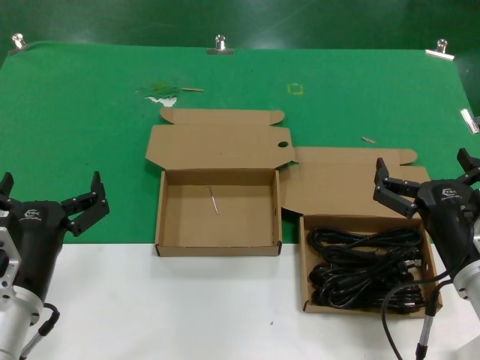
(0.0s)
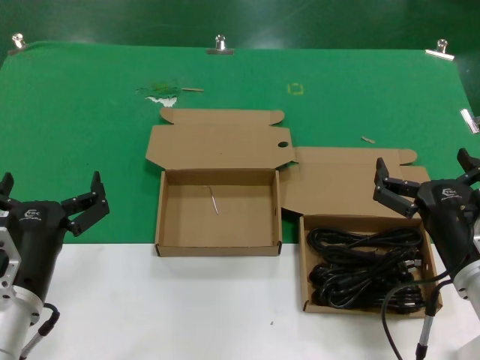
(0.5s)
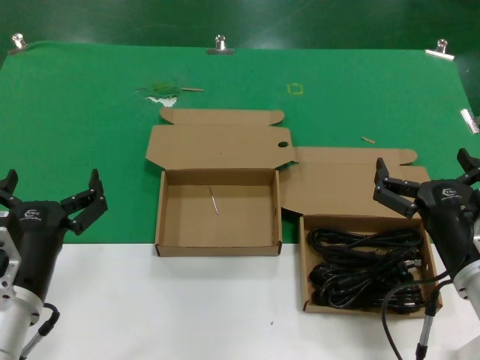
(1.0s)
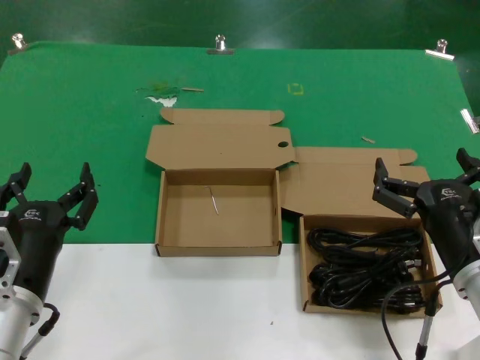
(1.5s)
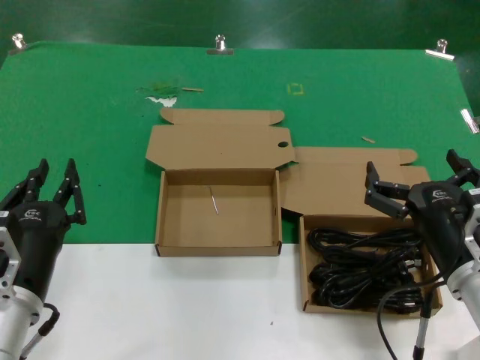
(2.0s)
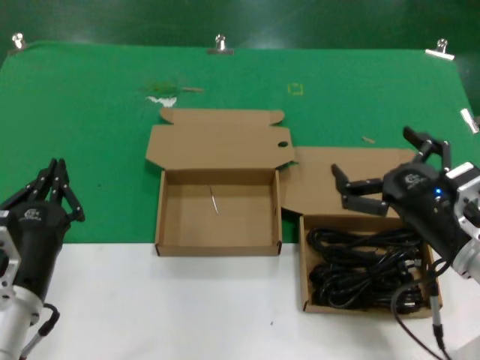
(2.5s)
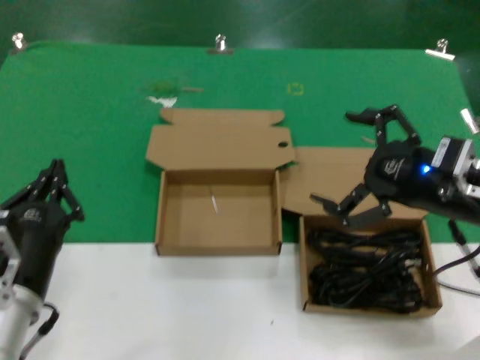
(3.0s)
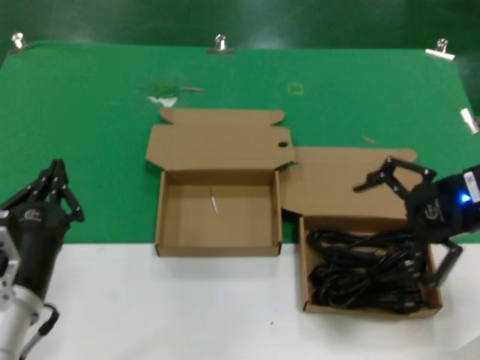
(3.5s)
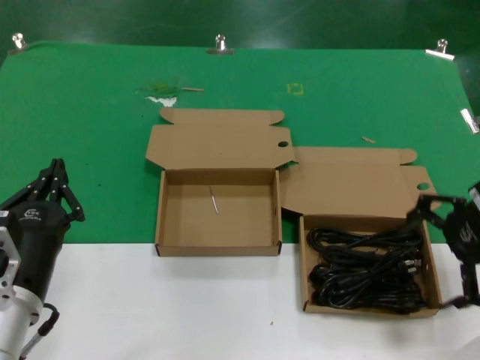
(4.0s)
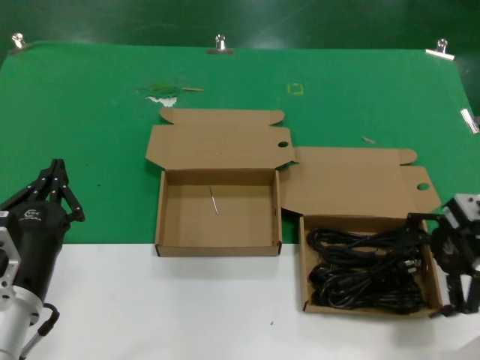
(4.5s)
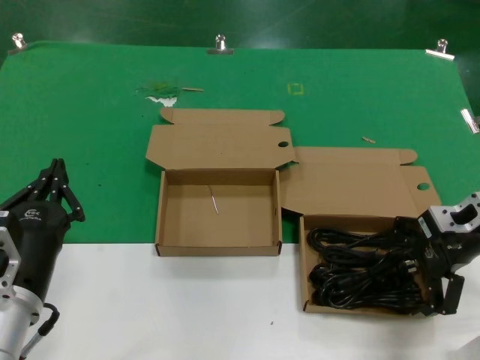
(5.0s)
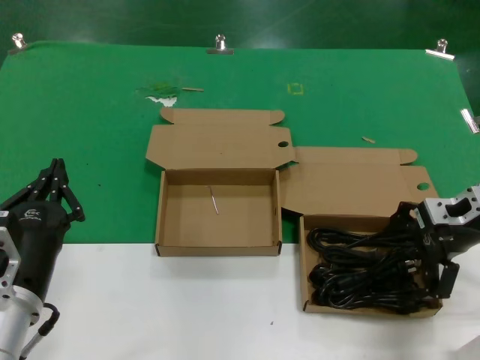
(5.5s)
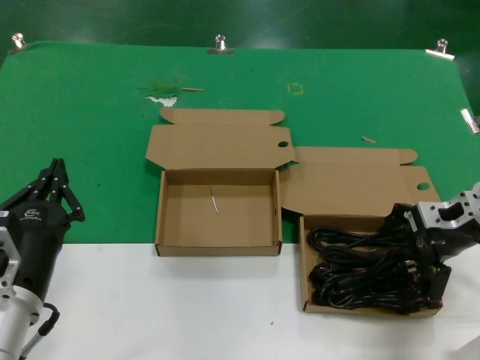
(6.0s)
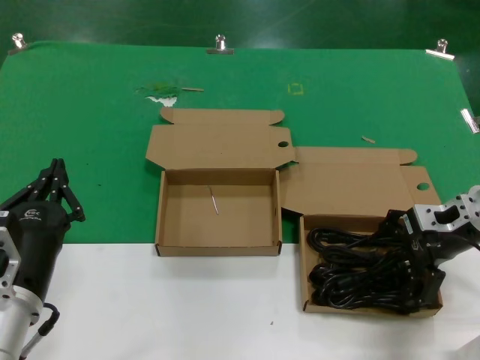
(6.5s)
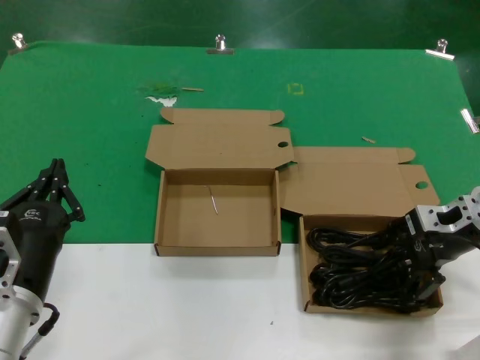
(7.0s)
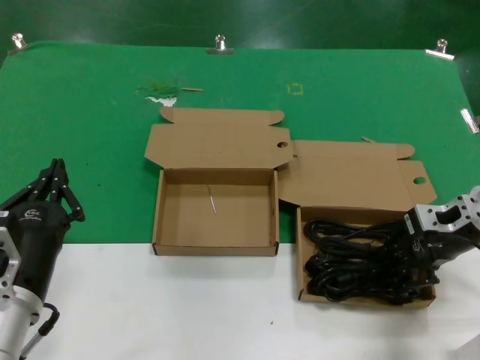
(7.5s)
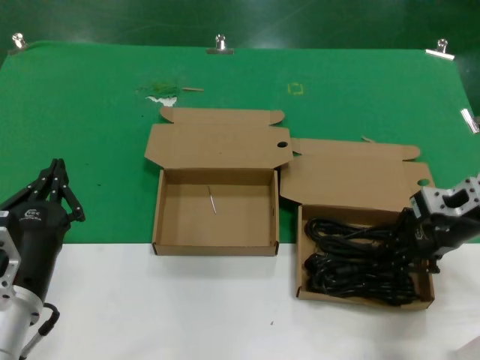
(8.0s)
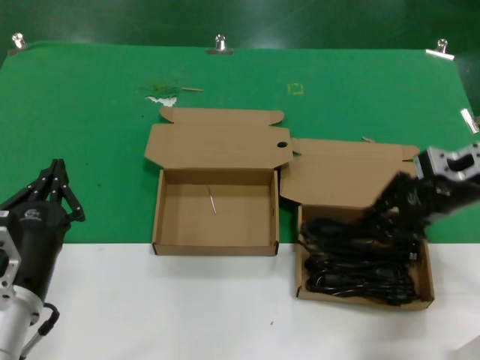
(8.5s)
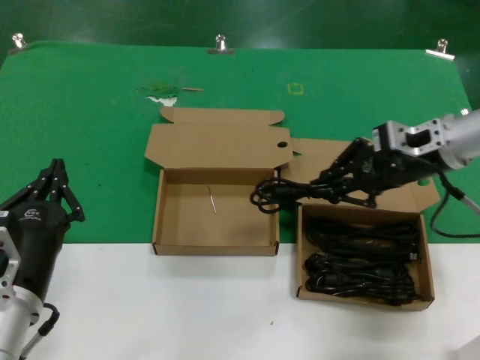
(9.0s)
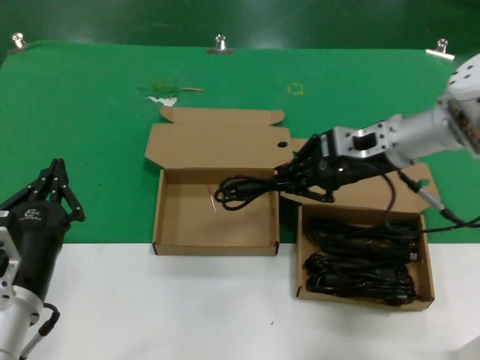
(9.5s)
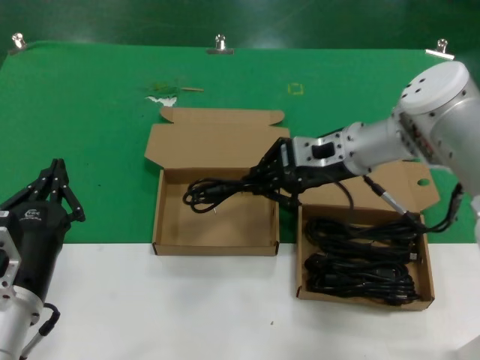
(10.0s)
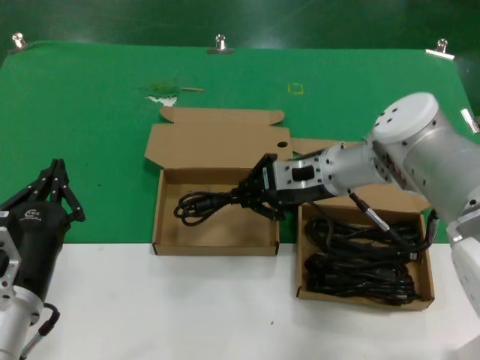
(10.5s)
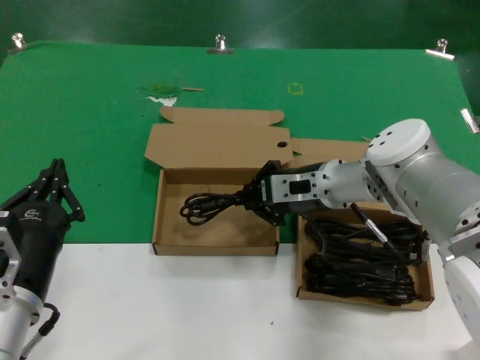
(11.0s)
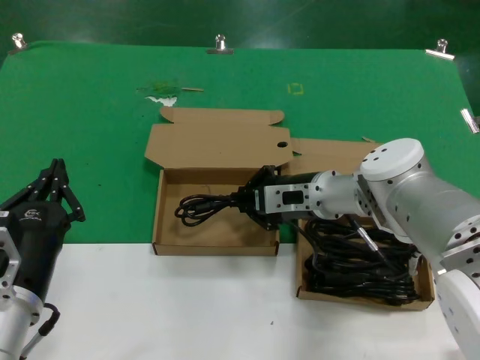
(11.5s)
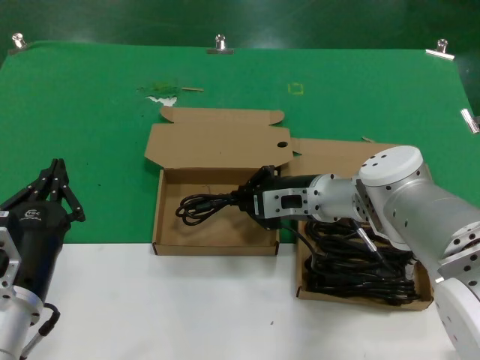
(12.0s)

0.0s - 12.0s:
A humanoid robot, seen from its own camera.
Task of the whole recording: take the parts from the box containing them and put them into an empty box.
Step, 0.0s - 7.5s: Grasp the data cable.
0.0s - 2.0s: Both hands stay about where they are.
2.0s - 4.0s: The right hand shifts roughly 25 cm upward, forward and to the right.
4.0s - 6.0s: The right hand is displaced downward by about 10 cm.
6.0s - 8.0s: The hands move only a little.
8.0s - 10.0s: The right hand travels to the left by roughly 15 cm.
10.0s - 12.0s: The right hand travels downward by about 10 cm.

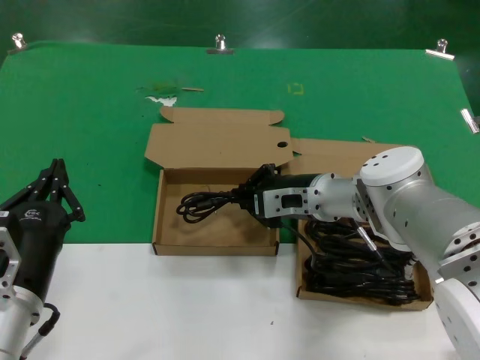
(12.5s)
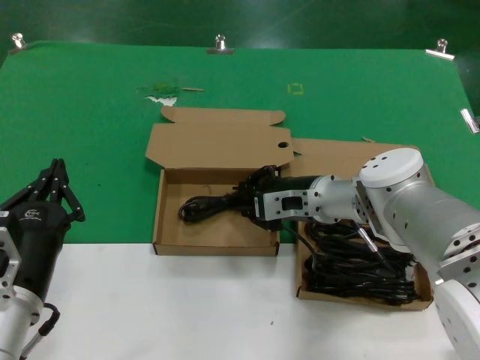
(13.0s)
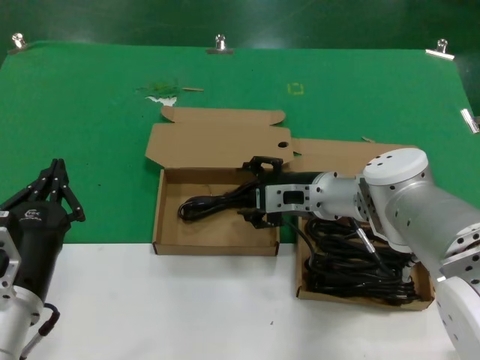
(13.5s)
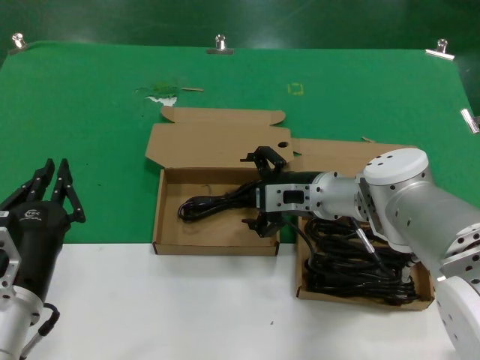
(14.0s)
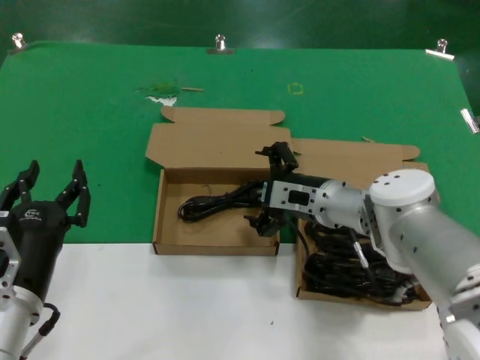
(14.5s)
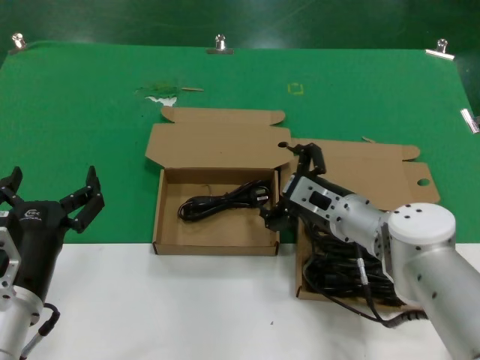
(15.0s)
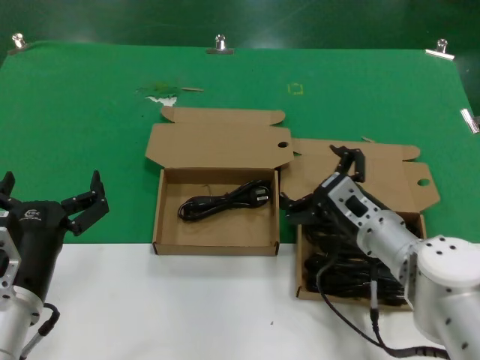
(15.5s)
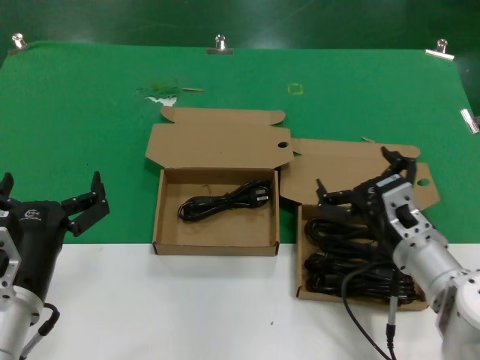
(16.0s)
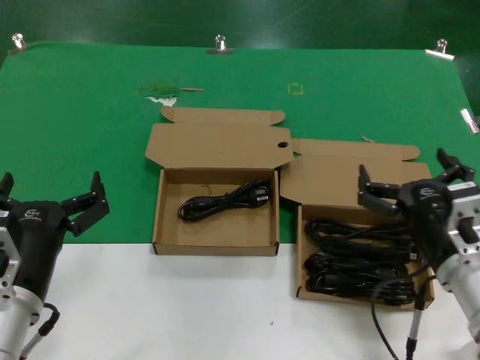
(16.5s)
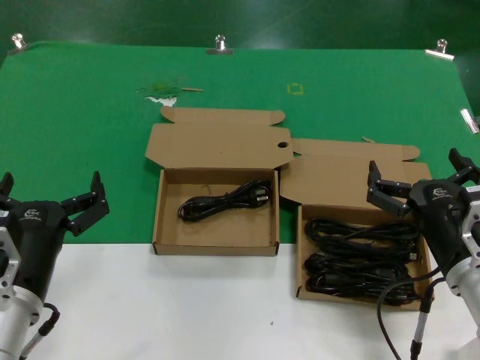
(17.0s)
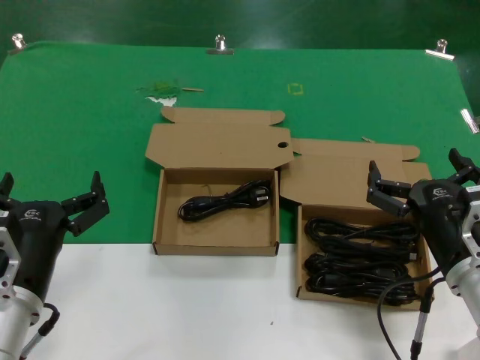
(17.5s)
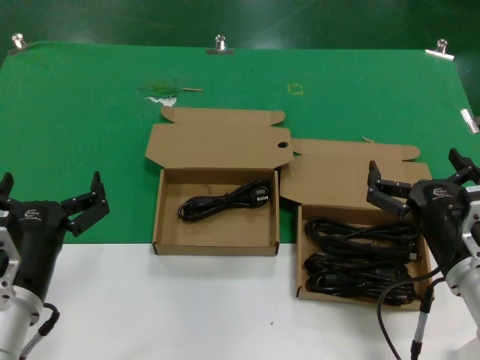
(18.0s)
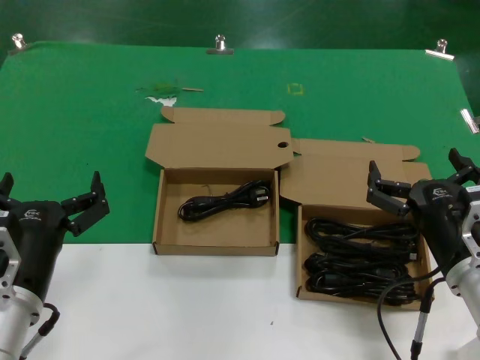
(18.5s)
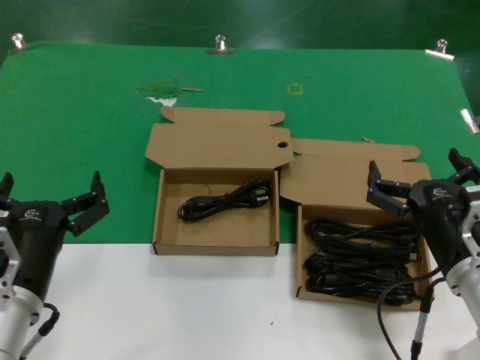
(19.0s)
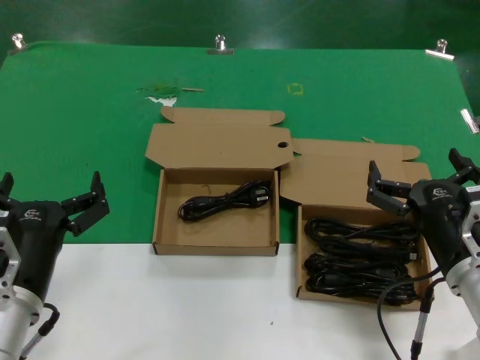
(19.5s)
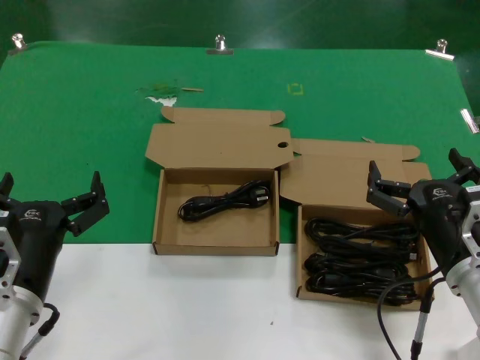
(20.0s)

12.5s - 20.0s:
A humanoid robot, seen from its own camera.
Task of the whole recording: take the parts from the box containing them and put them into an empty box.
12.5s - 14.5s: The hands move only a little.
14.5s - 16.5s: The right hand travels backward and to the right by roughly 20 cm.
16.5s - 18.0s: The hands move only a little.
18.0s - 20.0s: Both hands stay about where they are.

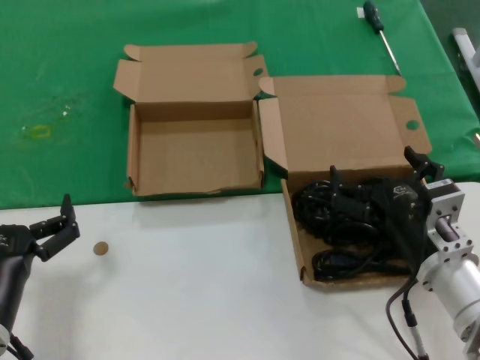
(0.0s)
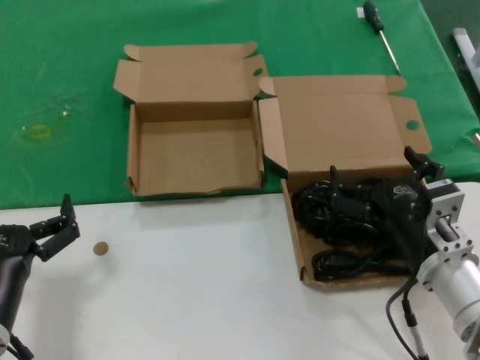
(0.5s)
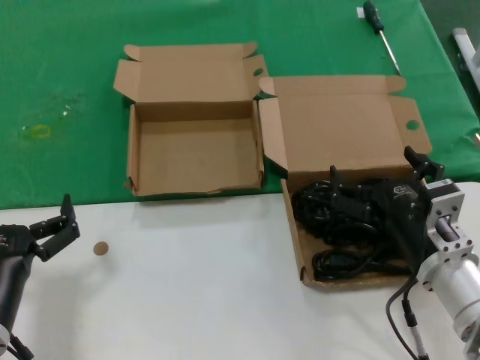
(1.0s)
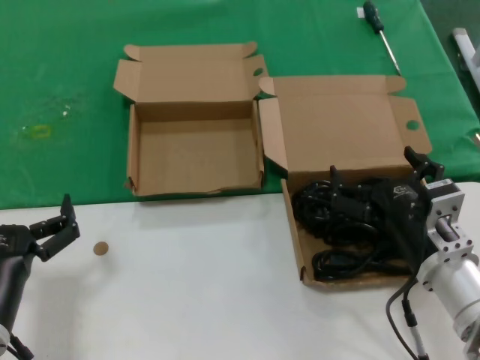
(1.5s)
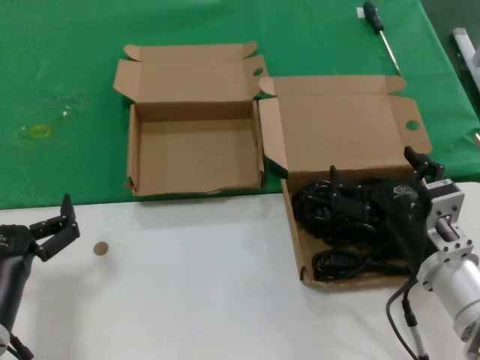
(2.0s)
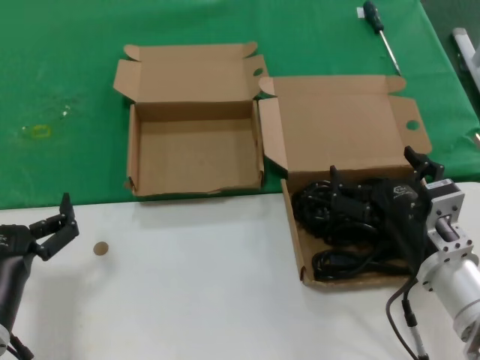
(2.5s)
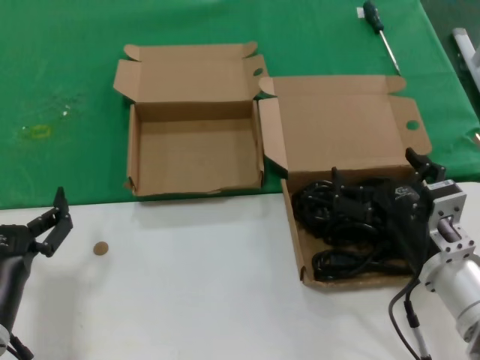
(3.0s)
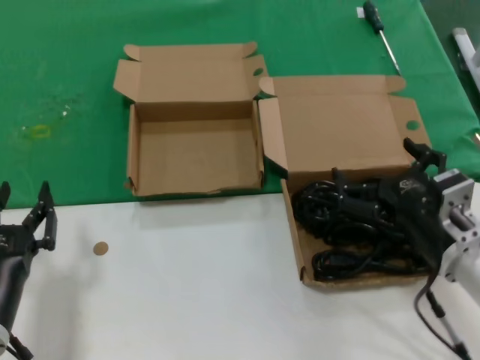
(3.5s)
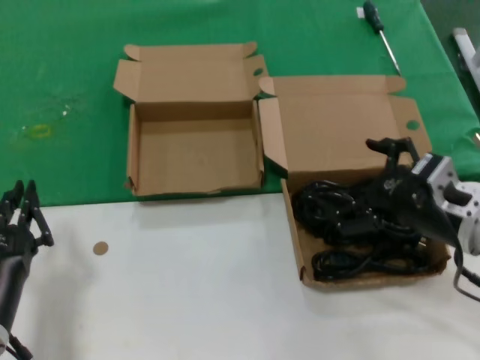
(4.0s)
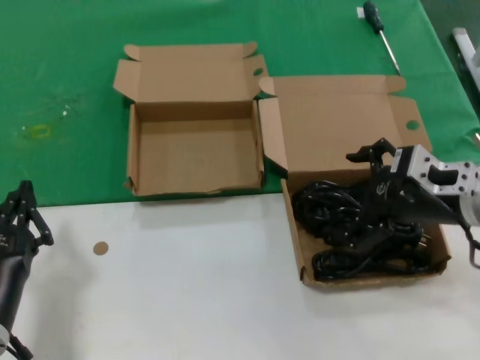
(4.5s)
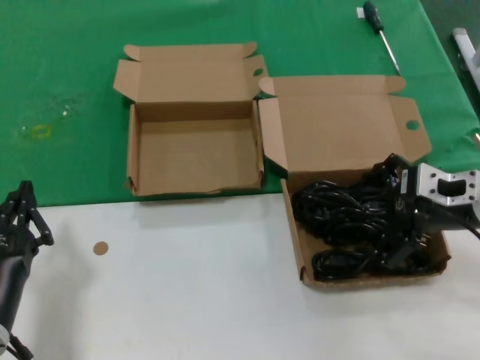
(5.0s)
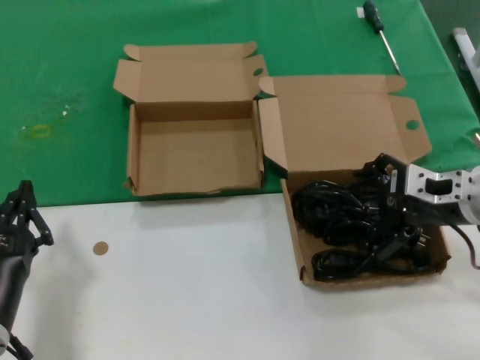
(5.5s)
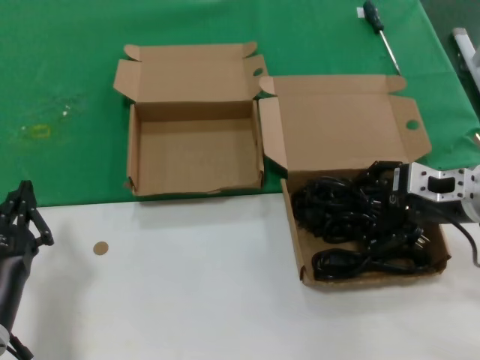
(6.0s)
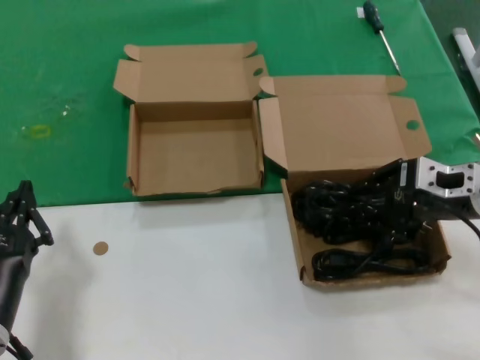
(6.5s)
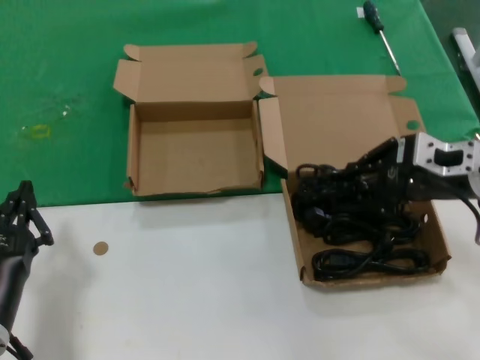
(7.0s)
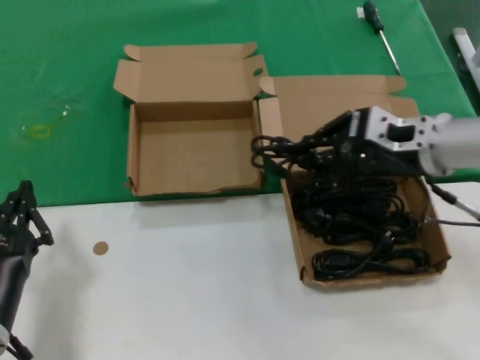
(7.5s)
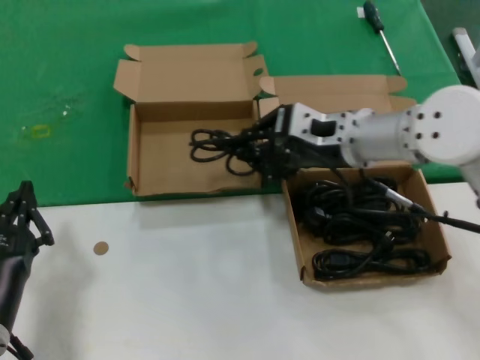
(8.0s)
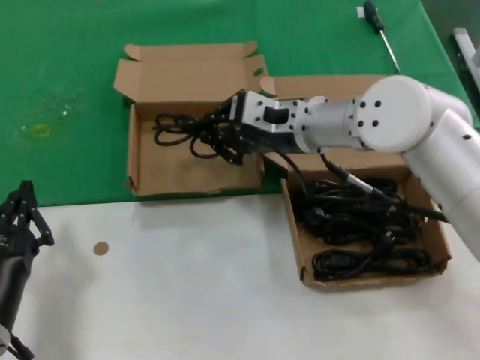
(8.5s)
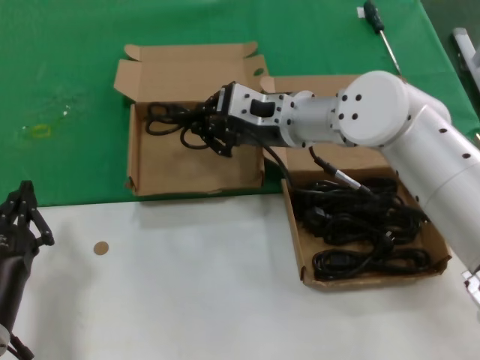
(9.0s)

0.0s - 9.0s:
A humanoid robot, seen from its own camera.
Task of the whole recording: take the parts from the box containing them and put them into an empty box.
Step, 0.0s - 6.5s: Grasp the data cable.
0.0s - 2.0s: Neither hand changes place.
2.0s - 4.5s: The right hand heads upward, to the right and forward, covering about 15 cm.
4.5s - 7.0s: The hands move only a little.
7.0s - 9.0s: The right hand is displaced to the left and forward by approximately 25 cm.
